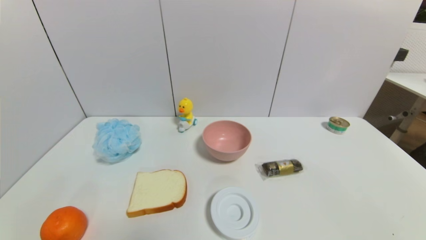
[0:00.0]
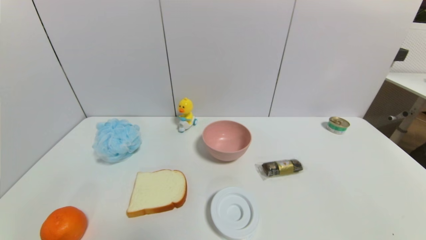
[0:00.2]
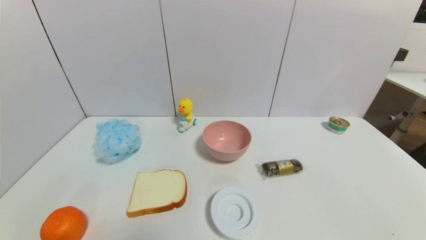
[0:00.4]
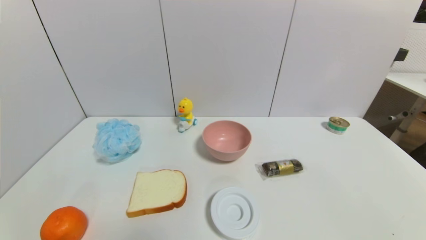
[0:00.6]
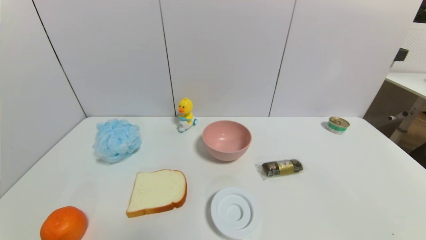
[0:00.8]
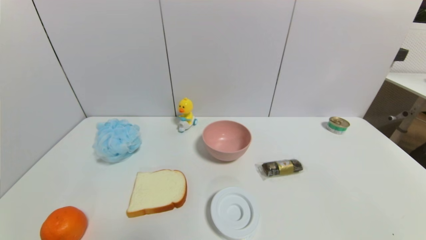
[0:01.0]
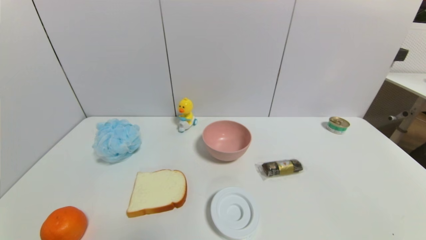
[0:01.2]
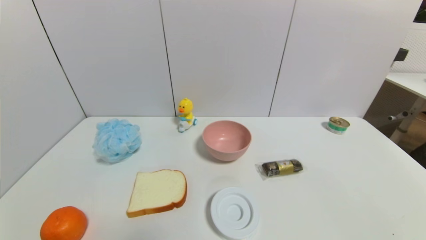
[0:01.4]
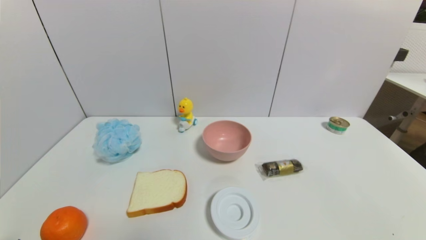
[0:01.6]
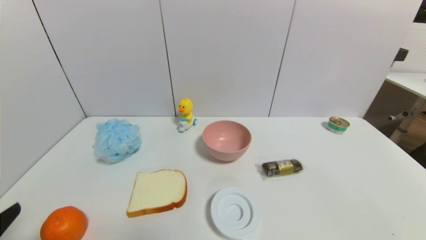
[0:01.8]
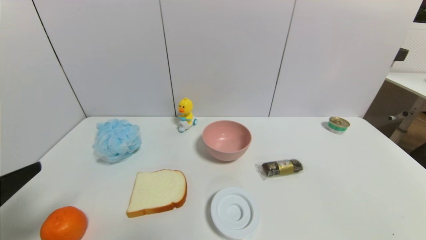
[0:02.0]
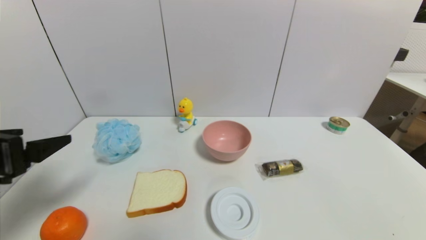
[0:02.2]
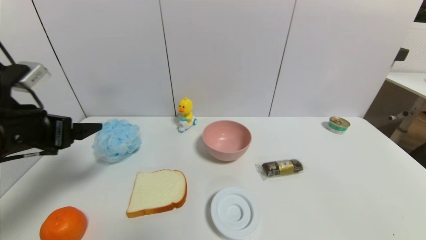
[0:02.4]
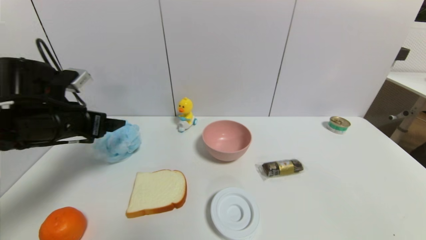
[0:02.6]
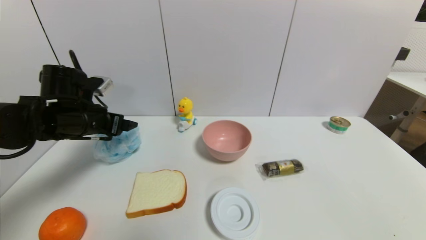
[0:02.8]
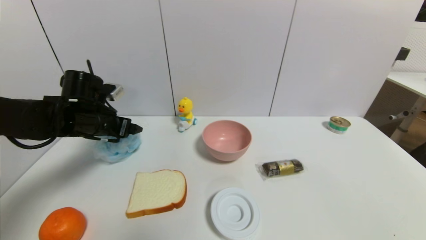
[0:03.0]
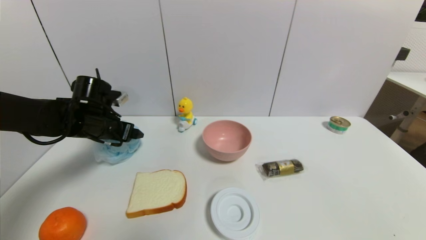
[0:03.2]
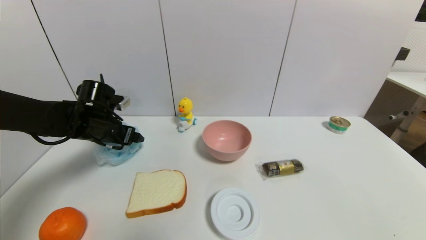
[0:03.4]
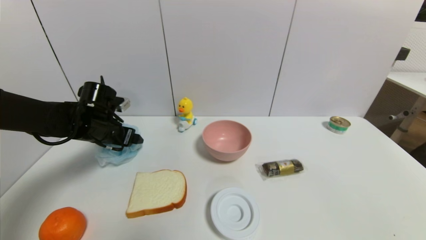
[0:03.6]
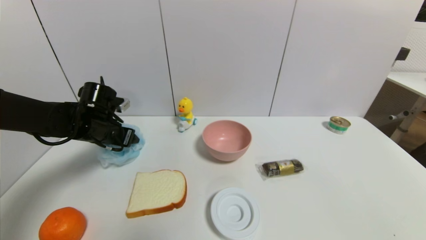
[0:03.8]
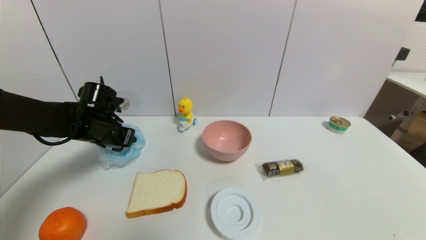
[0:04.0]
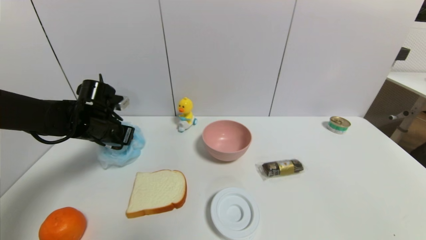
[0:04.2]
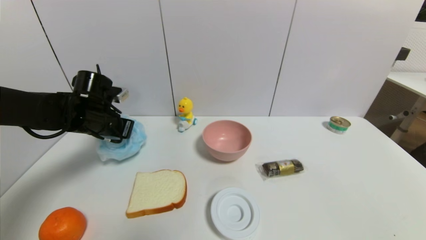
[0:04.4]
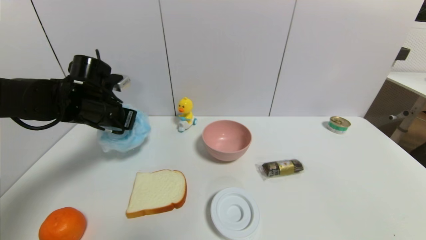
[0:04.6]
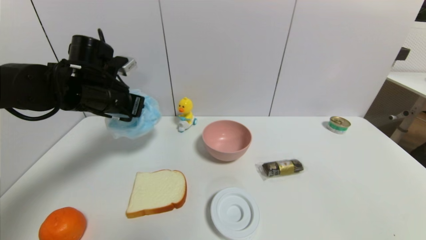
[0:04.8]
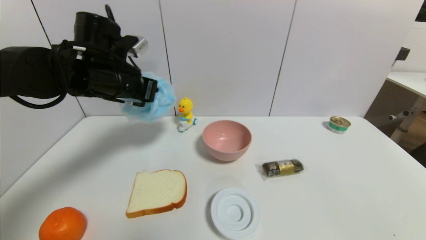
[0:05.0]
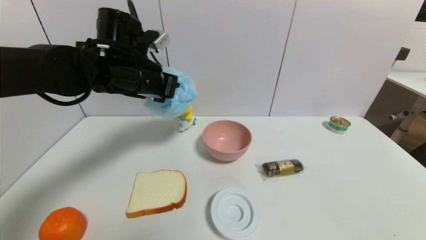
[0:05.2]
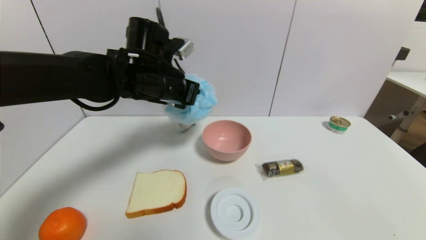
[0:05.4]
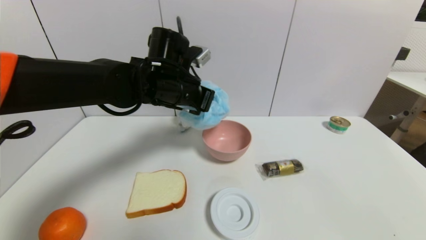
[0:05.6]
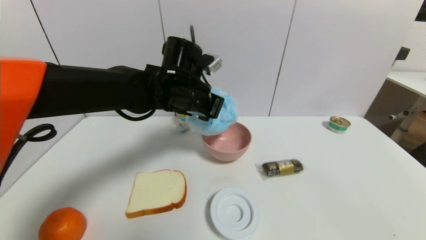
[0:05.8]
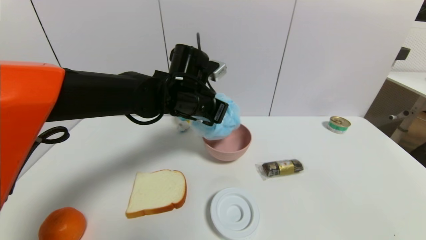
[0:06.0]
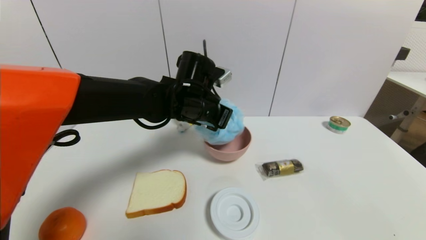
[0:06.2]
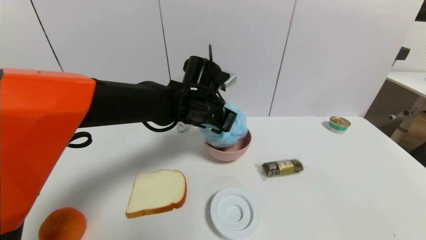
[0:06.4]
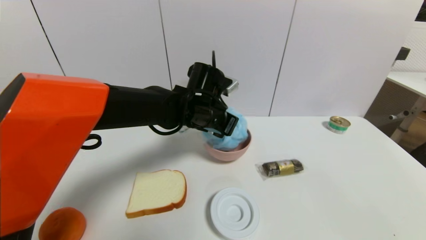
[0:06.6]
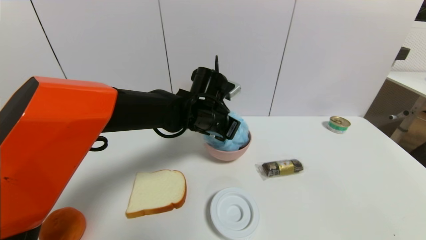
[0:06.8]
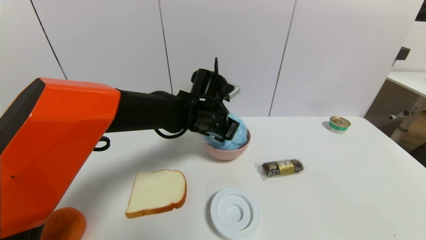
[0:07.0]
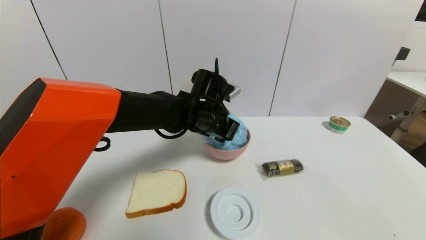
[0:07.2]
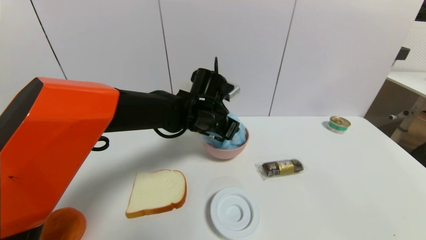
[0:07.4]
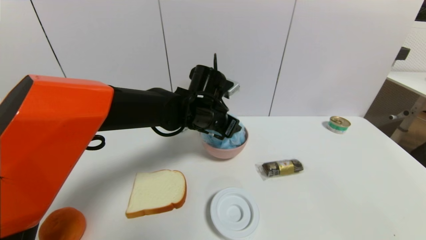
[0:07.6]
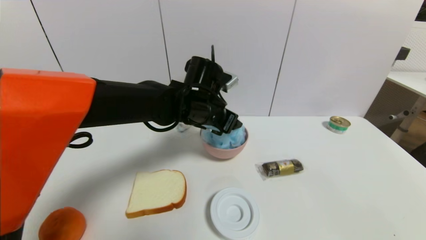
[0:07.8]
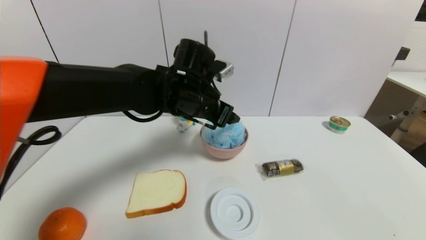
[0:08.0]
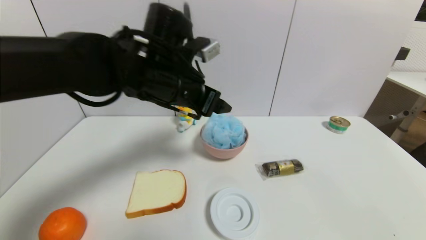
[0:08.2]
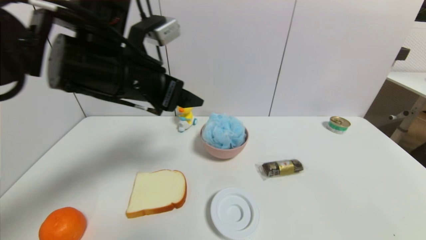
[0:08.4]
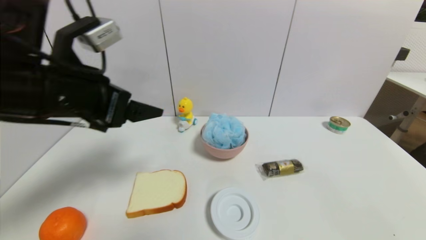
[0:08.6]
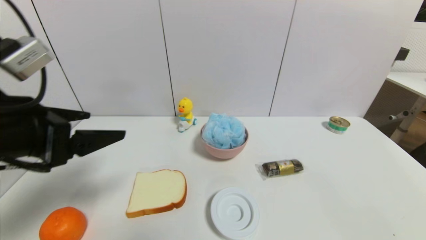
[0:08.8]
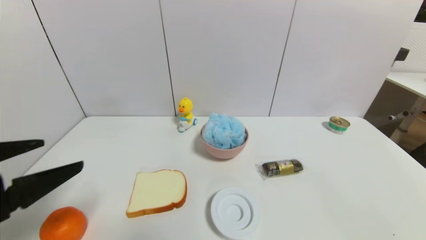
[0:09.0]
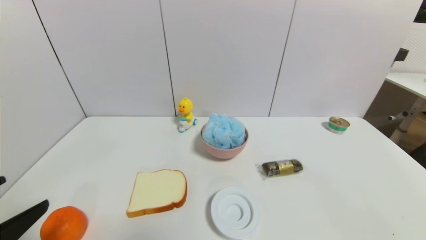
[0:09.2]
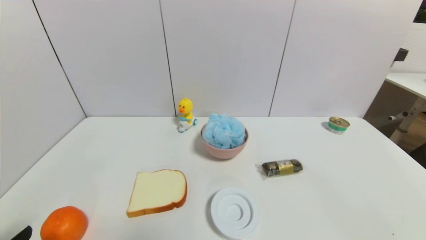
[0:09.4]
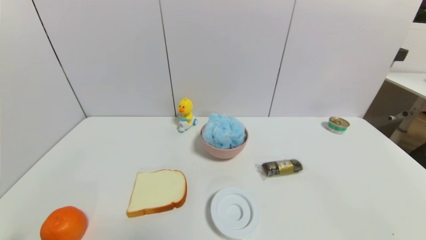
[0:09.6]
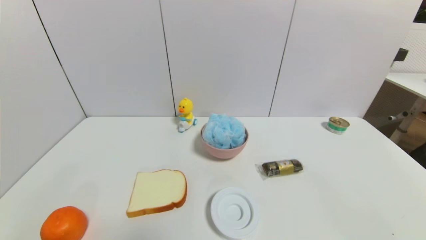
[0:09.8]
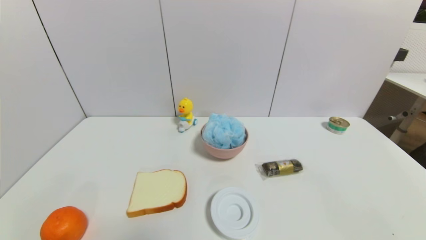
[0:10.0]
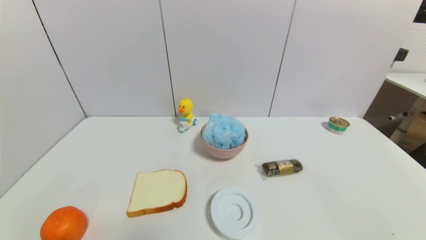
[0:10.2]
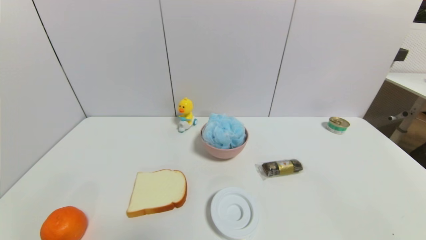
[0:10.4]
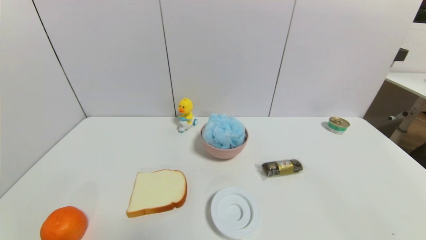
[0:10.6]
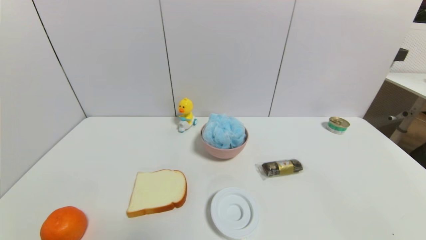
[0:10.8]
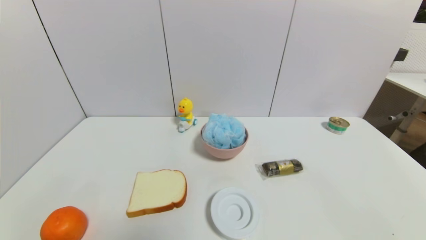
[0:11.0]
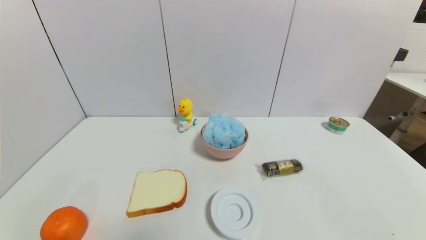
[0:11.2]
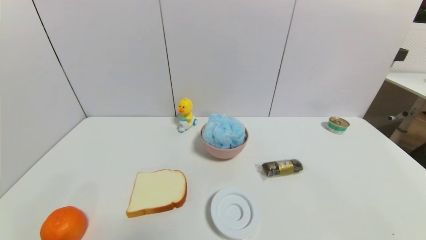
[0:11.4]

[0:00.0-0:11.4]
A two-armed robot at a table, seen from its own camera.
Task of the whole recording: use a gripper to pick the target object and place on the pink bowl.
Step, 0:00.0 to 0:04.0: Grasp the shower sphere with the left gripper.
Step, 0:04.2 to 0:07.8: Place the shower sphere on the pink bowl with the left gripper.
0:01.4 to 0:02.8: The left gripper travels forward by about 35 cm.
0:02.8 to 0:04.2: The left gripper ends up some 5 cm from where it was, and closes up.
0:04.2 to 0:05.6: The left gripper travels to the right and upward by roughly 20 cm.
0:05.6 to 0:07.2: The left gripper goes about 10 cm downward and to the right.
0:07.2 to 0:08.6: The left gripper goes about 25 cm to the left, backward and upward, and opens.
0:08.6 to 0:10.0: The left gripper moves downward, backward and to the left, approximately 35 cm.
0:10.0 to 0:11.4: Neither gripper changes place.
